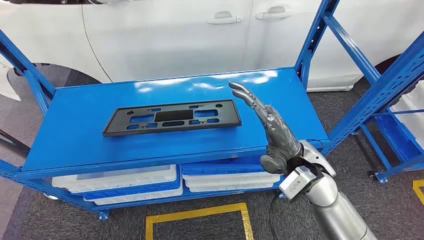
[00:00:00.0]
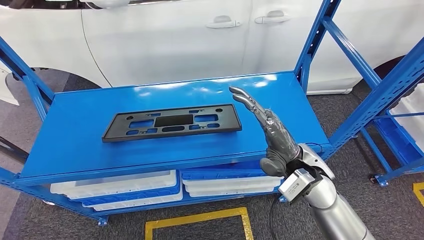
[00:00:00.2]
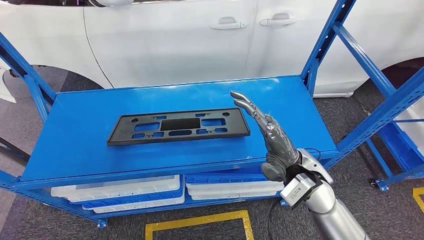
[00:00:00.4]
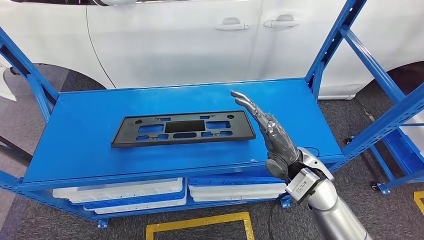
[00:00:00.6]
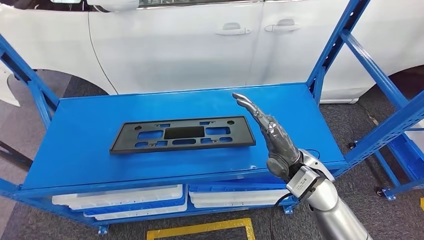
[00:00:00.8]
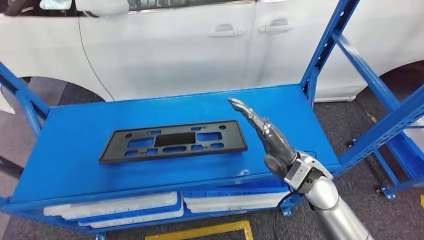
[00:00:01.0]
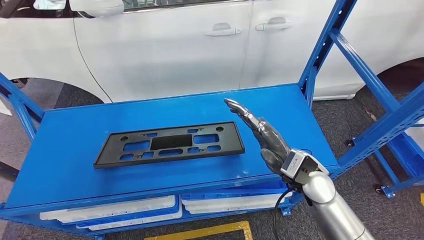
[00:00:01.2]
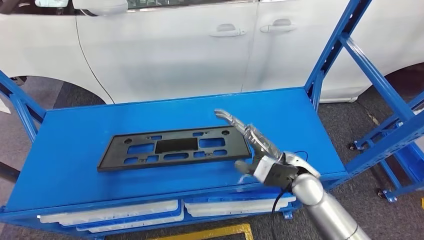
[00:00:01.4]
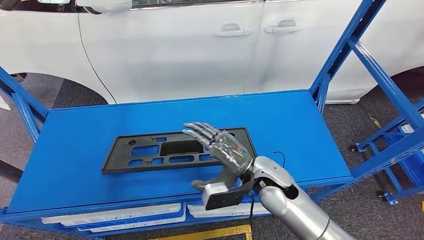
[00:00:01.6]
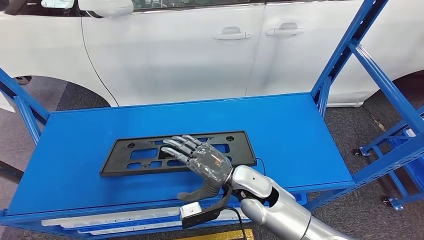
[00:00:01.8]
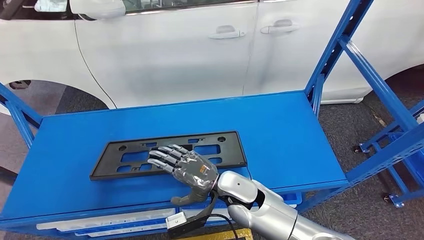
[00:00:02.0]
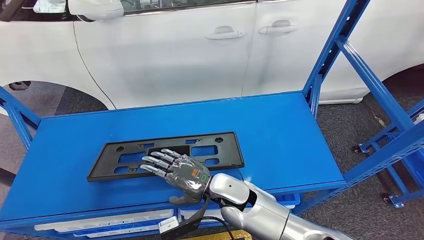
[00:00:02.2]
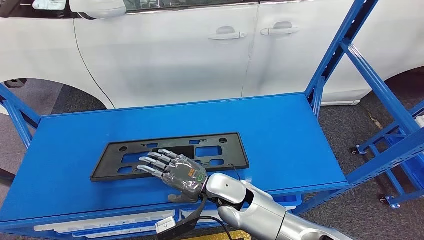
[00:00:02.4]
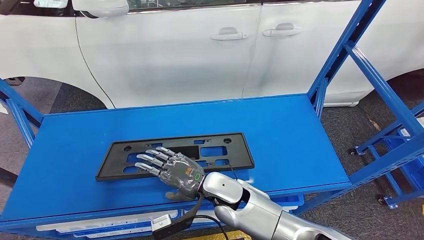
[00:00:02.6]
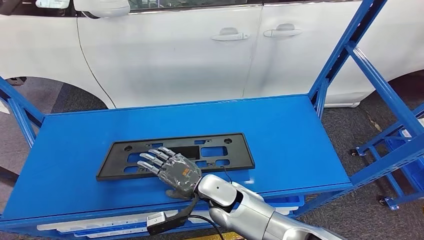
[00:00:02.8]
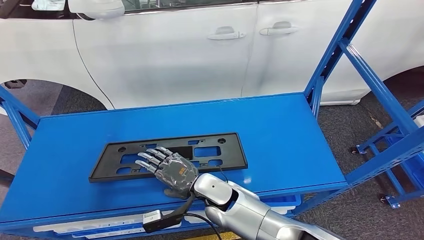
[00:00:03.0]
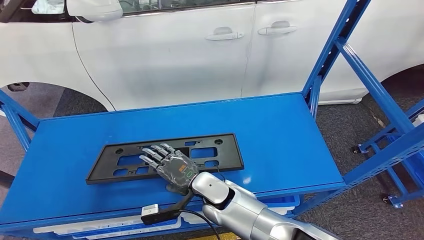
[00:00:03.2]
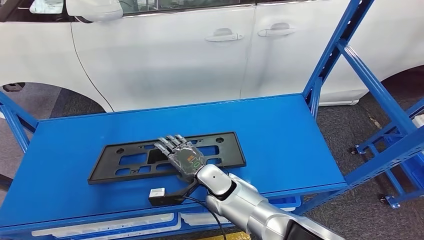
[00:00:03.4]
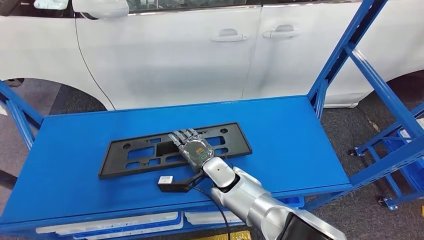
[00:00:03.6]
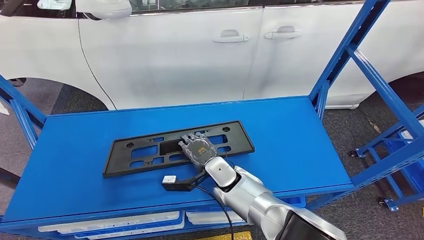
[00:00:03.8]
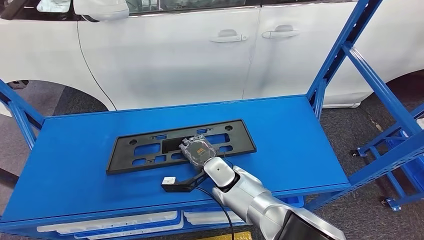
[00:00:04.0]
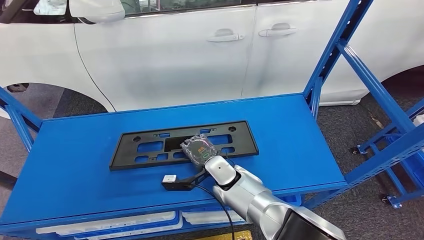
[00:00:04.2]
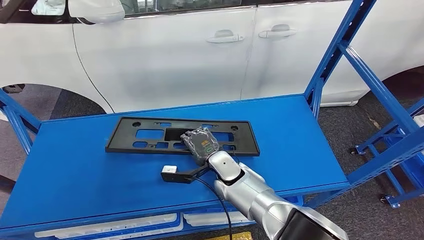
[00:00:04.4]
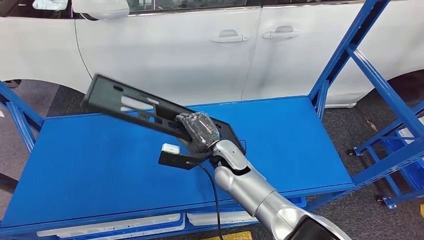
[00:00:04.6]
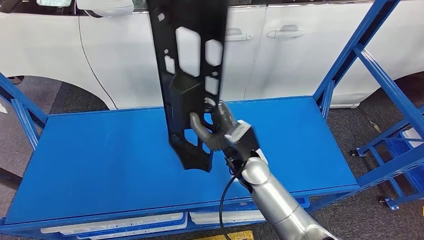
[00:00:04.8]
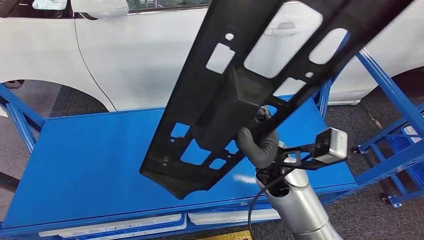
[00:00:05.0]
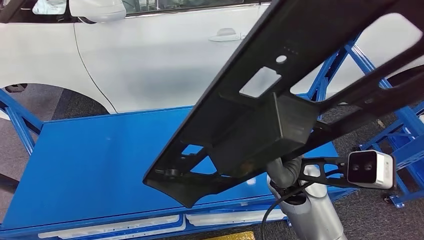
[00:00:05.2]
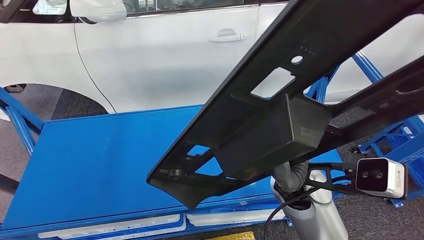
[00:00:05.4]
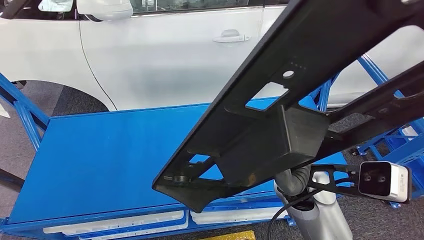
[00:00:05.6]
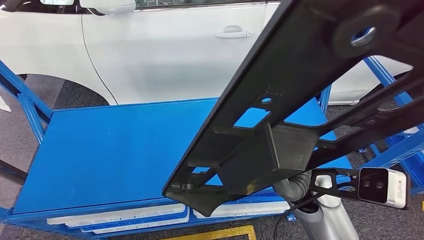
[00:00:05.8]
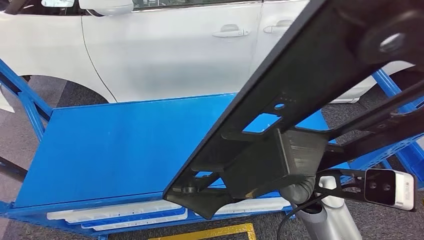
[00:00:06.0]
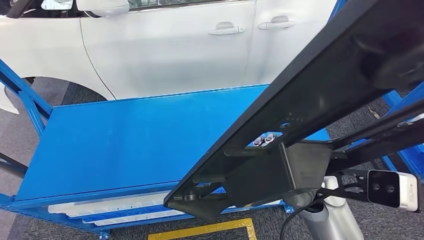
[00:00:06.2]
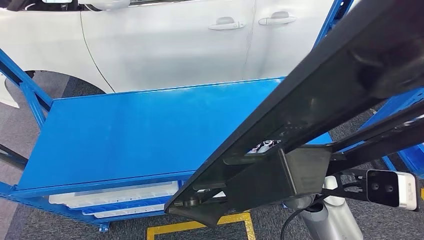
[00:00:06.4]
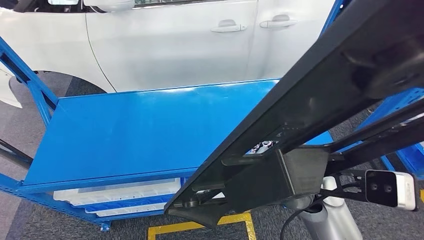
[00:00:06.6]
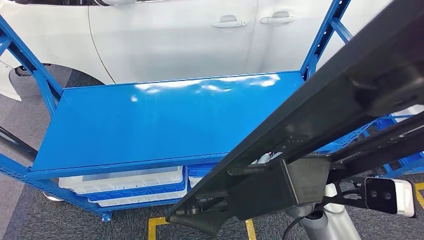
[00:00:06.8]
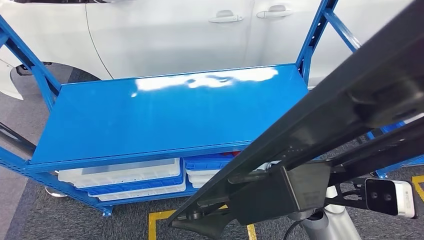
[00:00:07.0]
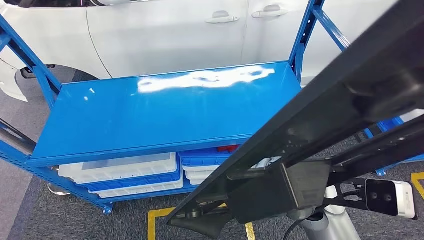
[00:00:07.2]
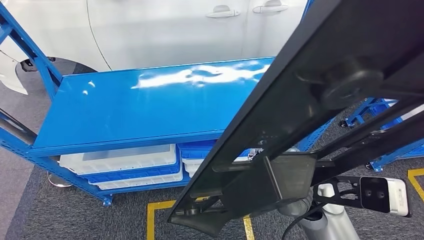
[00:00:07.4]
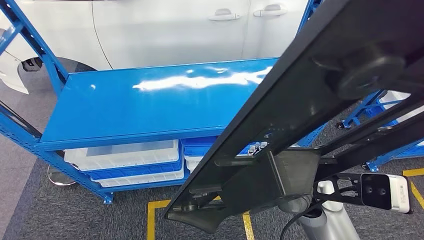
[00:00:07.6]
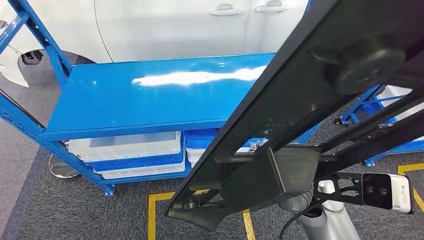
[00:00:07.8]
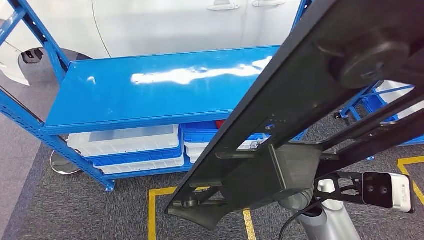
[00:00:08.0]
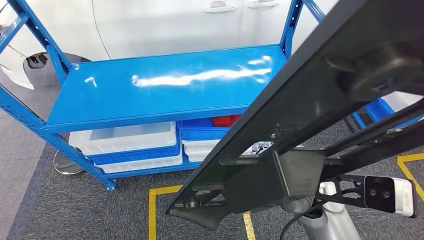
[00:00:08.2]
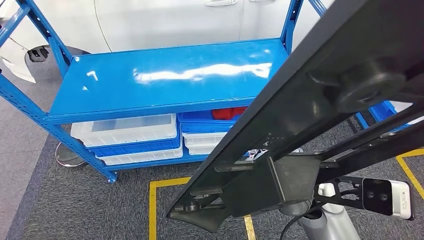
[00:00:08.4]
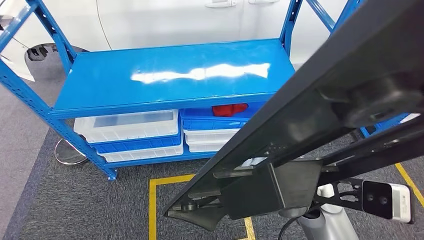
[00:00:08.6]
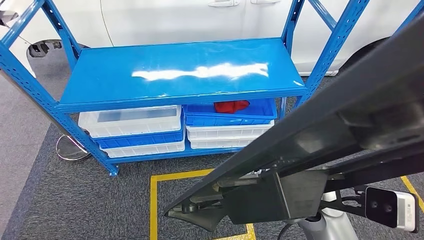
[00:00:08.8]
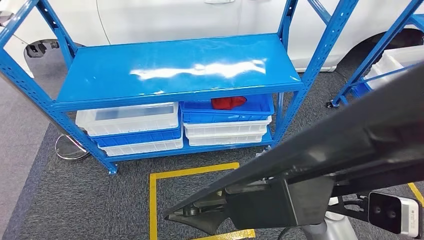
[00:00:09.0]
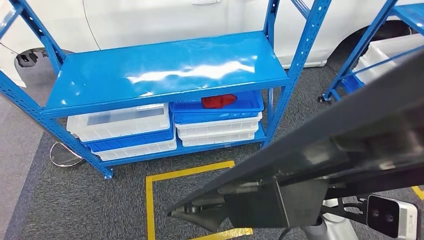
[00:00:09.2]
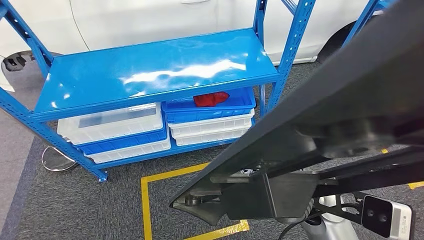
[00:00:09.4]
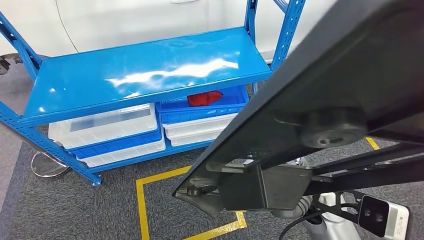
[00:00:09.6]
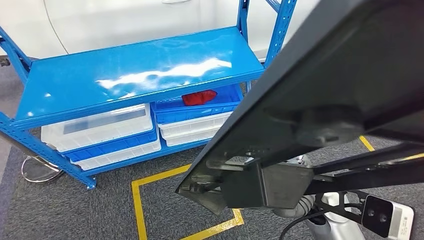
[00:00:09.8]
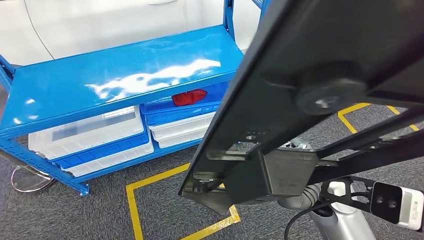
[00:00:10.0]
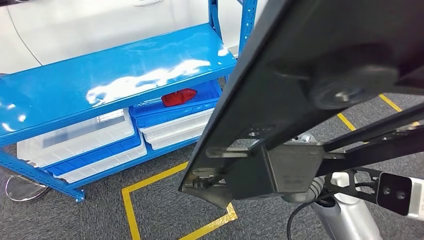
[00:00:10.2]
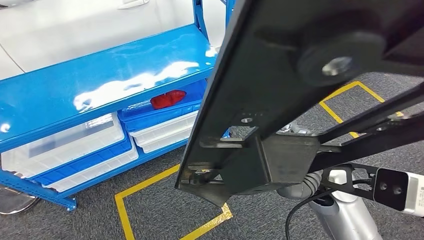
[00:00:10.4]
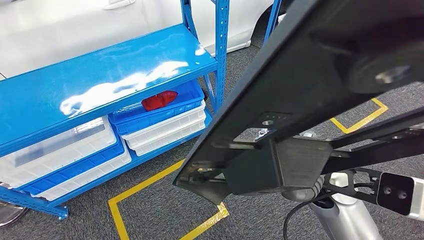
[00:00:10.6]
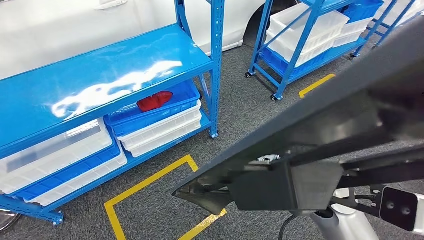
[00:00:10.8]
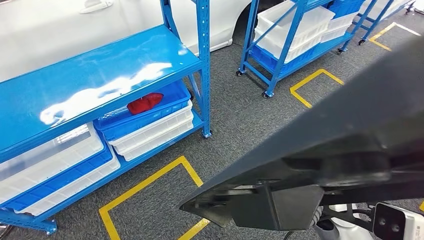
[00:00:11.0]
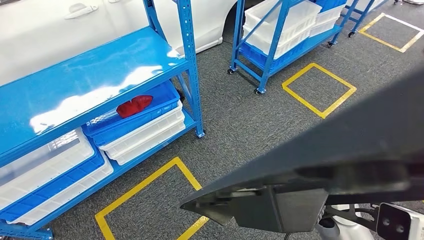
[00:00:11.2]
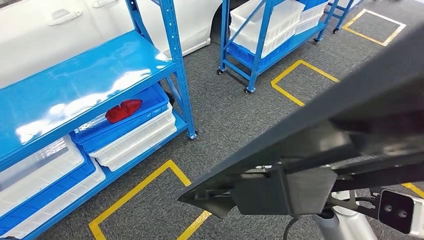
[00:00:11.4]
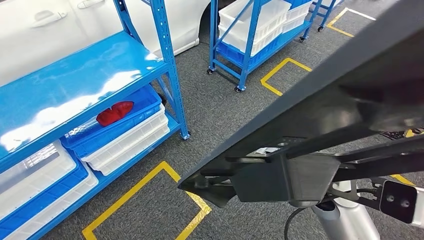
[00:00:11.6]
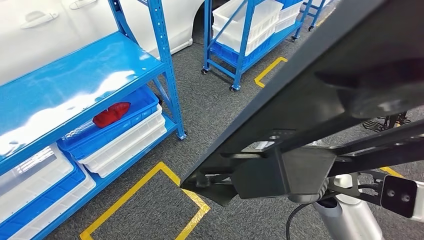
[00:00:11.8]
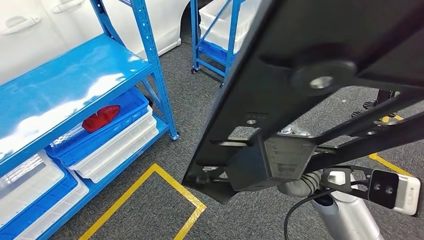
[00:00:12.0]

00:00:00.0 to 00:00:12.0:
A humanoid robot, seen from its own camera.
Step, 00:00:00.0 to 00:00:05.2: Pick up the small component from the shelf.

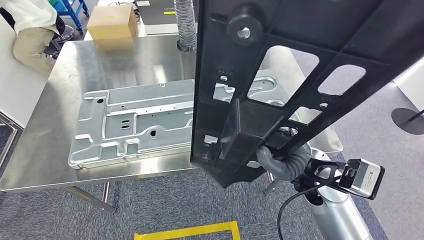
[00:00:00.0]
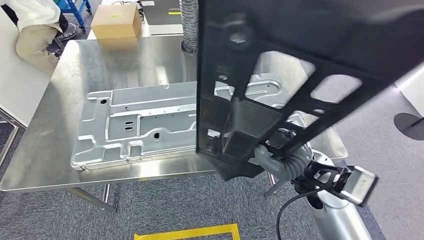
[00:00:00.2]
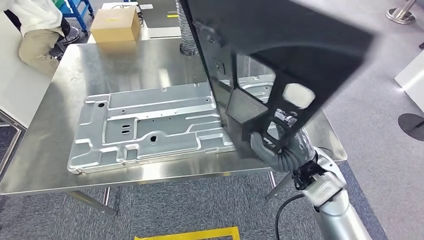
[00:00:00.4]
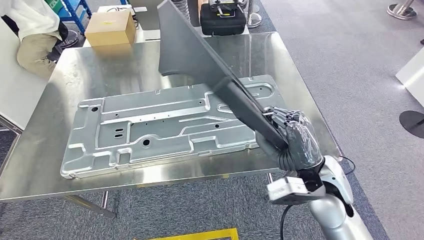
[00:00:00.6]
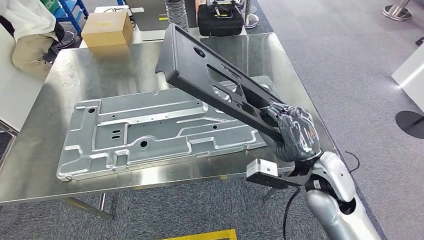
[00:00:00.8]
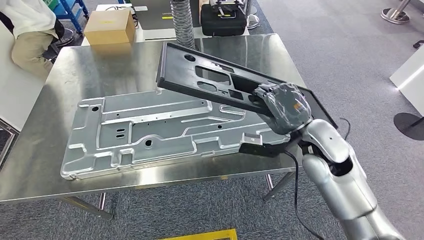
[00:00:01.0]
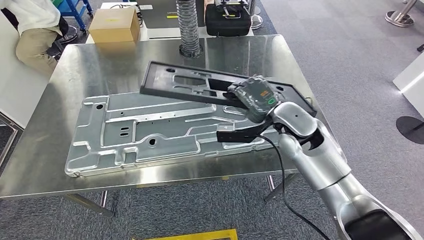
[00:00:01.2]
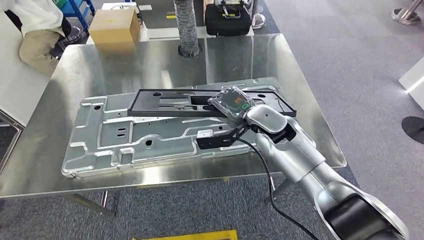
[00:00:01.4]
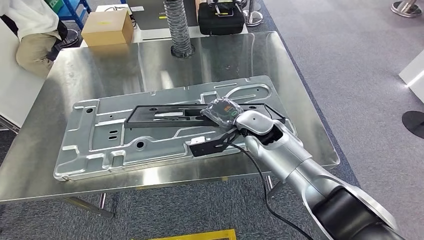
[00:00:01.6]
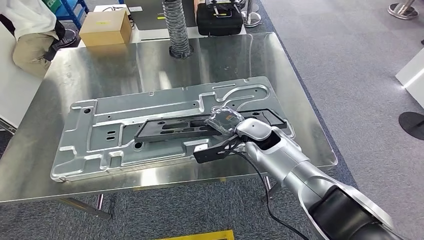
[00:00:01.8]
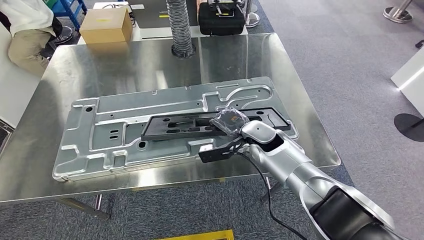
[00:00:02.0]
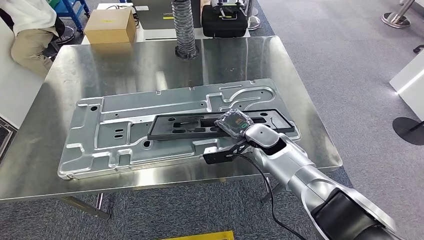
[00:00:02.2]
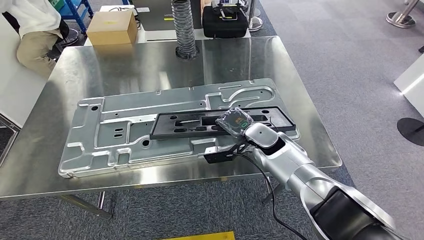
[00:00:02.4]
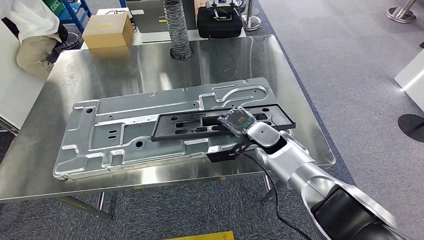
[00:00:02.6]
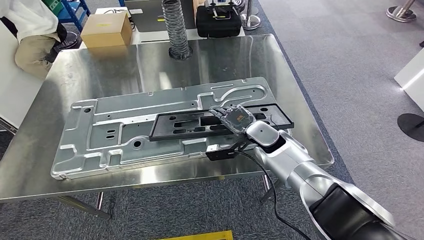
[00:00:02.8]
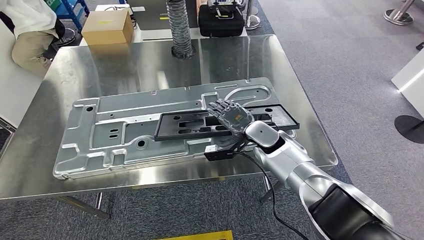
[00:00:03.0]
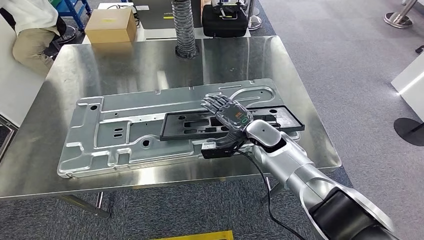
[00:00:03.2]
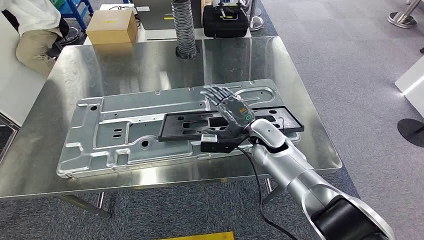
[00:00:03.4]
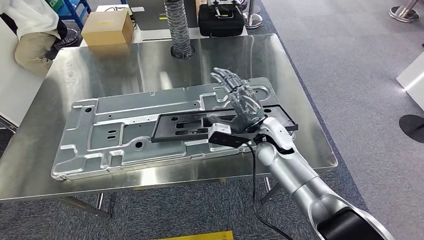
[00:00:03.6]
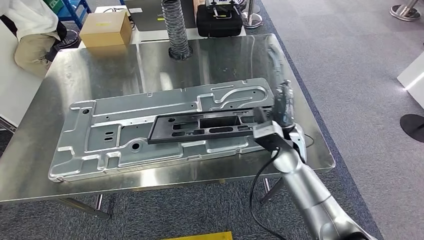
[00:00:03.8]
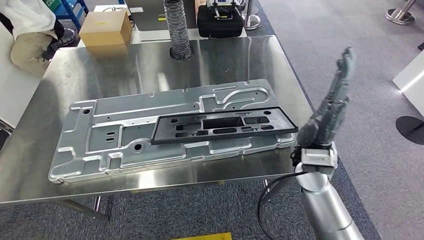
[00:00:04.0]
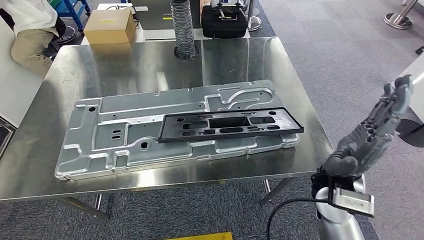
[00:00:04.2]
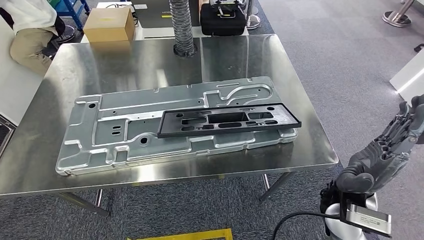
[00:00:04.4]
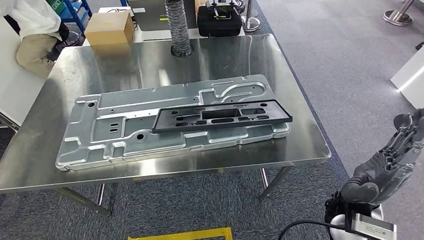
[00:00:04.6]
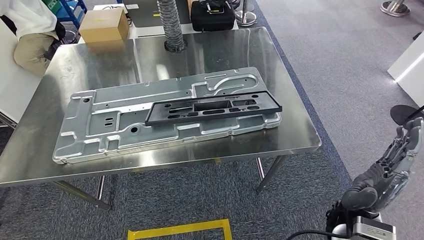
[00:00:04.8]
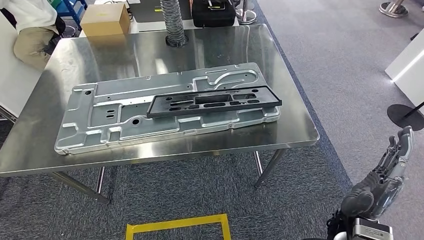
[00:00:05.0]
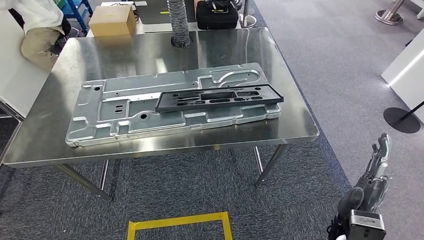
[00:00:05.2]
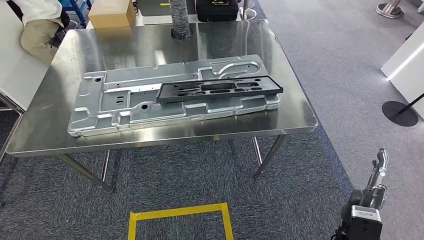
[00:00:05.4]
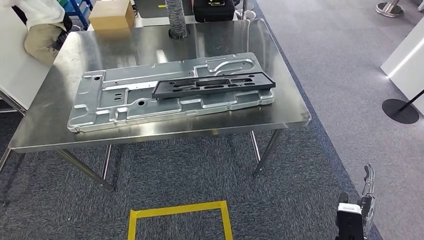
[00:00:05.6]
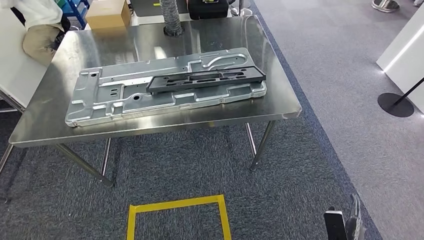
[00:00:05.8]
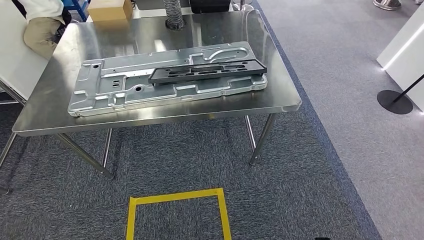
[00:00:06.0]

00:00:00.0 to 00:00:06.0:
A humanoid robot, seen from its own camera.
Step, 00:00:00.4 to 00:00:04.6: Insert the small component into the corresponding slot on the workbench.
